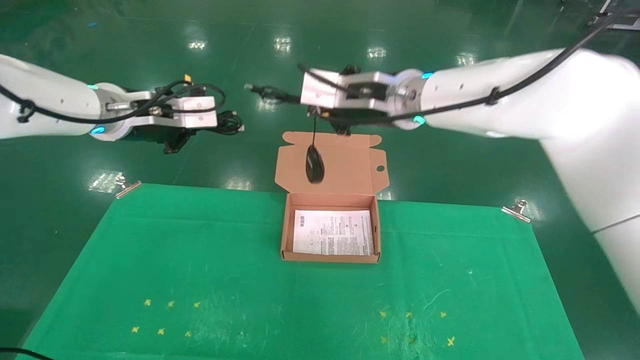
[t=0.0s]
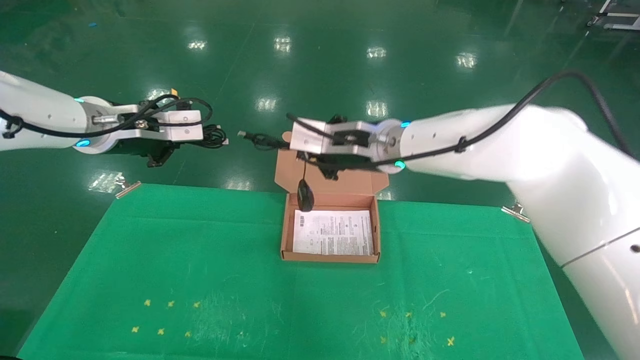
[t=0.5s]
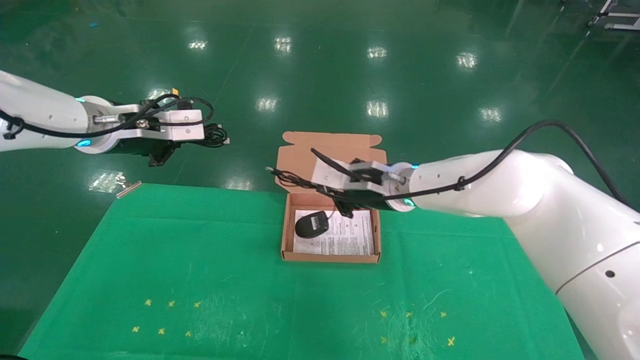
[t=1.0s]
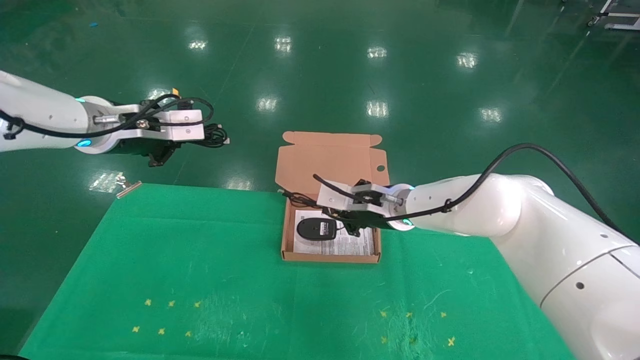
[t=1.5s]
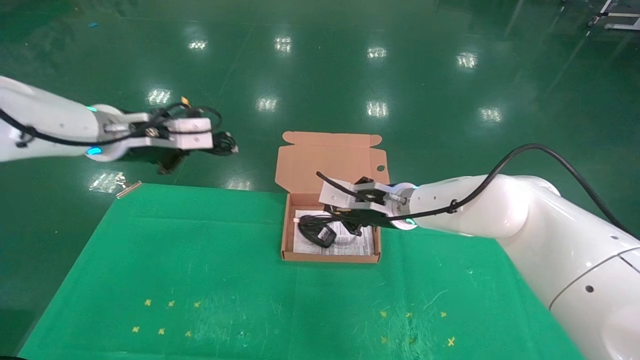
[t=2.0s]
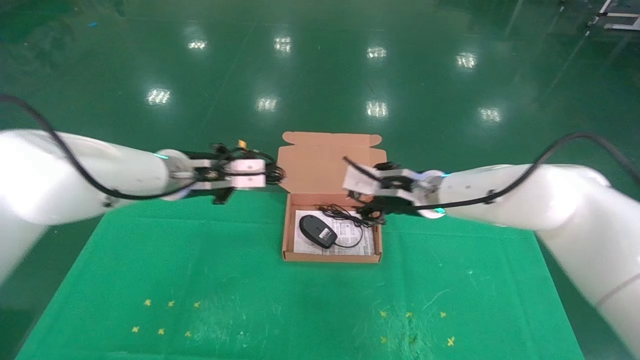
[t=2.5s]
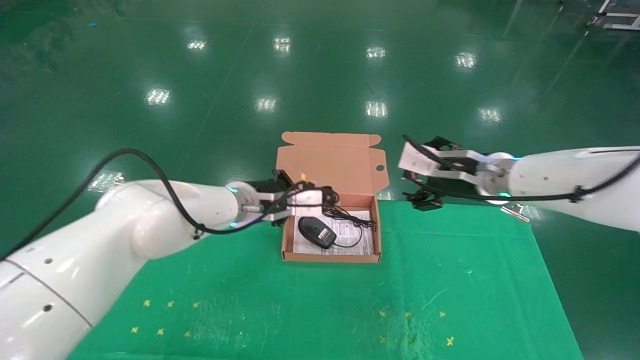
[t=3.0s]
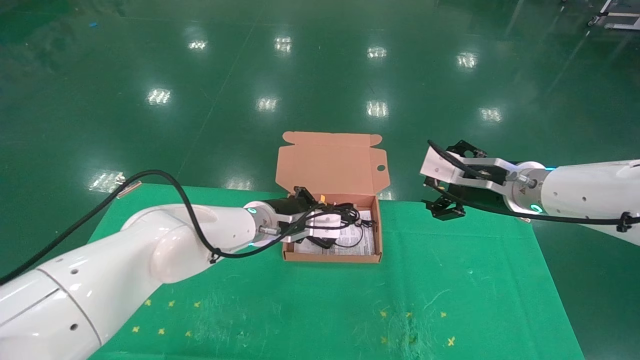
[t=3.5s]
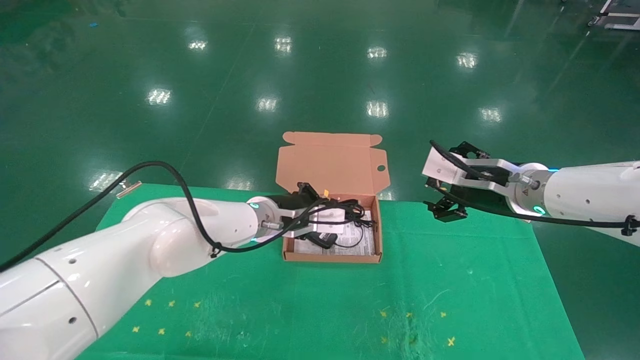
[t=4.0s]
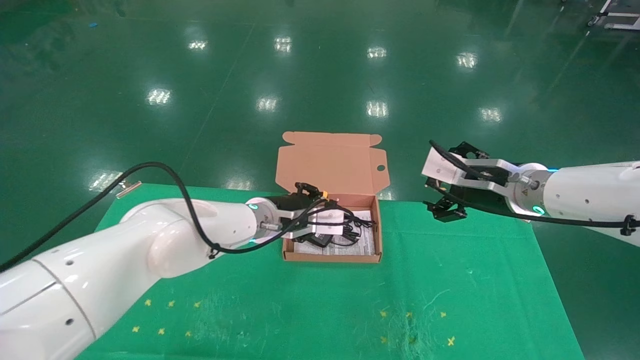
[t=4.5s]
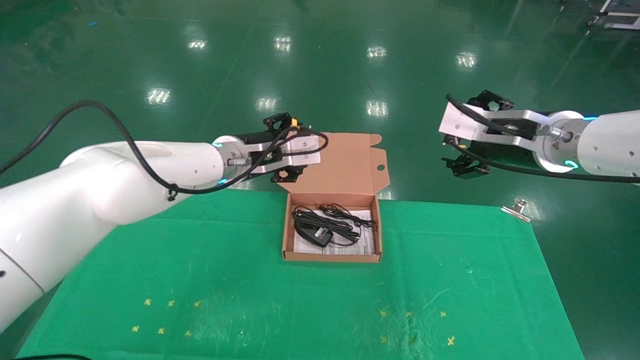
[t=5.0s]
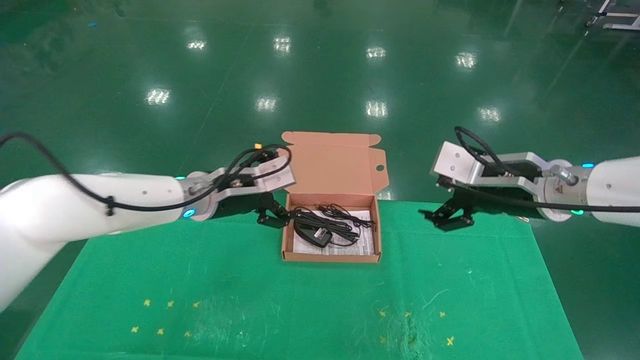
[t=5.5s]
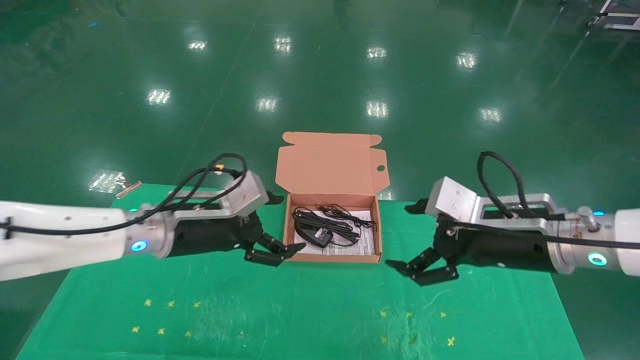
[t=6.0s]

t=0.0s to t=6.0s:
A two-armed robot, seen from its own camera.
Task of the whole recording: grasp data cable left put into box grasp mouse right put into box.
Step, t=0.0s to t=4.0s: Place the mouse and power cord into the box.
t=0.0s to t=2.0s: The right gripper shifts roughly 15 cm downward.
t=2.0s to t=4.0s: The left gripper travels to the right and downward by roughly 25 cm, while the right gripper shifts approximately 15 cm to the right and backward, and opens its fingers.
t=4.0s to t=6.0s: The left gripper travels to the left and backward by roughly 15 cm, and opens up. The right gripper travels backward by roughly 10 cm, and travels upward and back again, some 5 cm each way.
